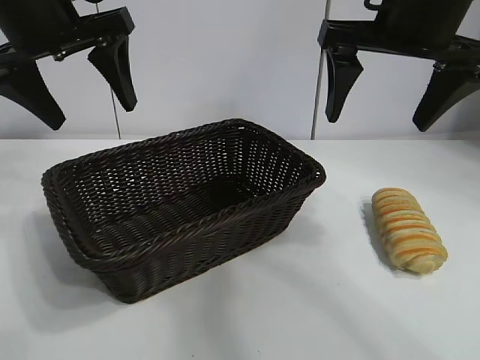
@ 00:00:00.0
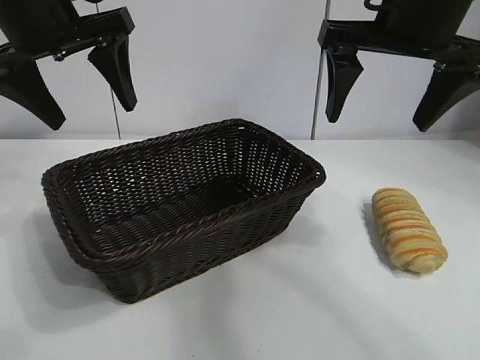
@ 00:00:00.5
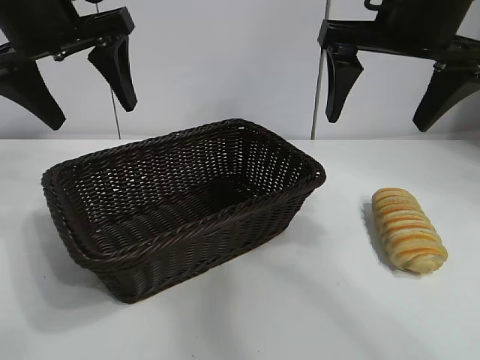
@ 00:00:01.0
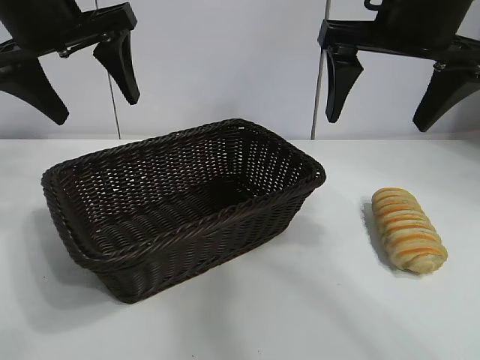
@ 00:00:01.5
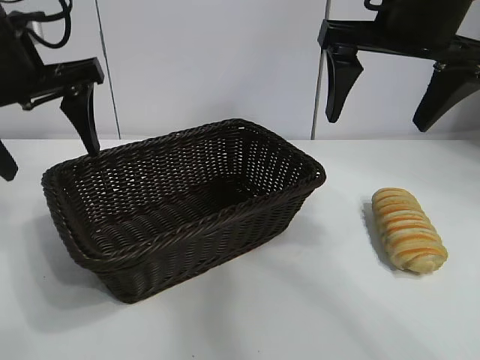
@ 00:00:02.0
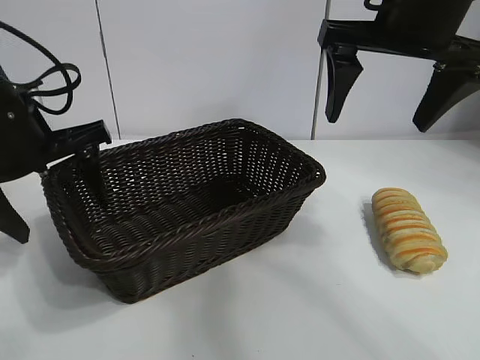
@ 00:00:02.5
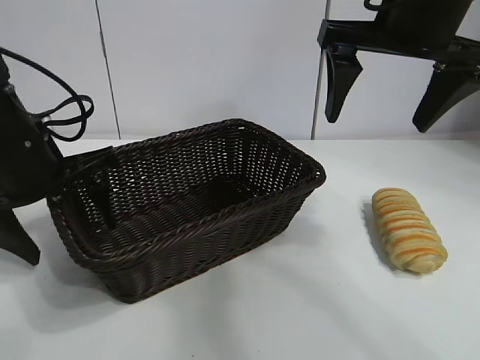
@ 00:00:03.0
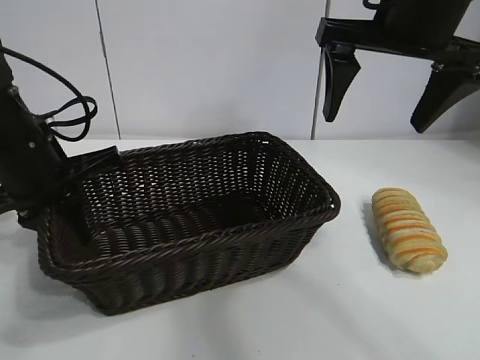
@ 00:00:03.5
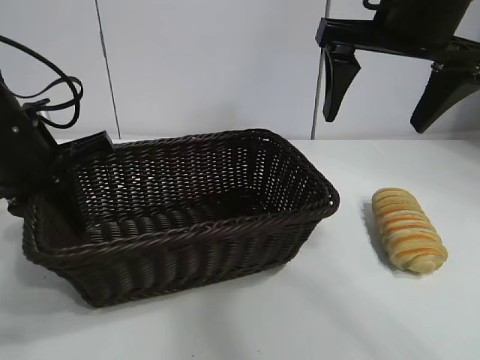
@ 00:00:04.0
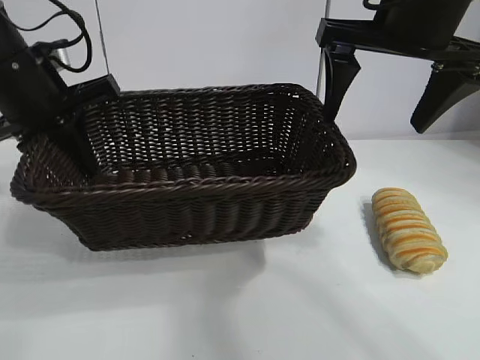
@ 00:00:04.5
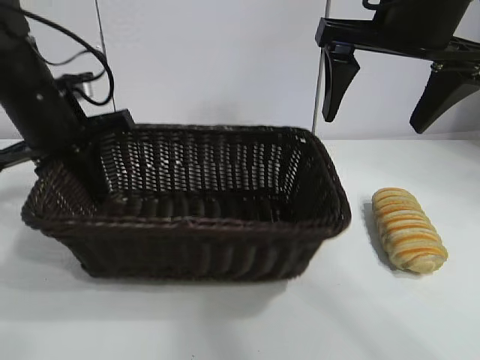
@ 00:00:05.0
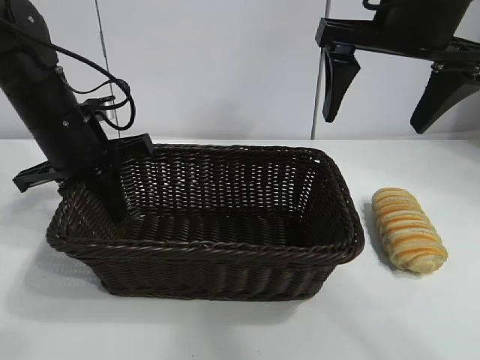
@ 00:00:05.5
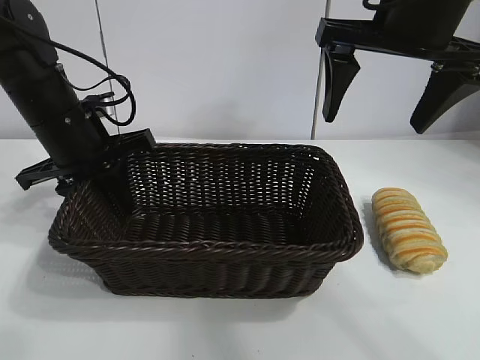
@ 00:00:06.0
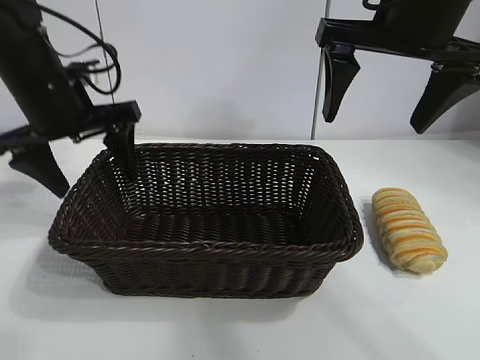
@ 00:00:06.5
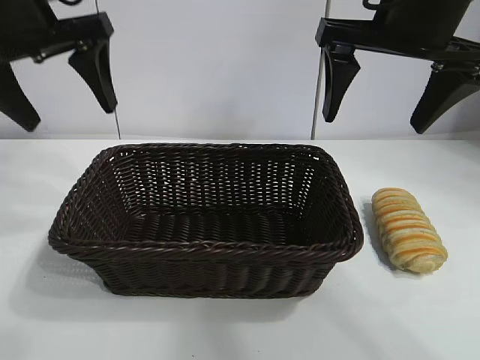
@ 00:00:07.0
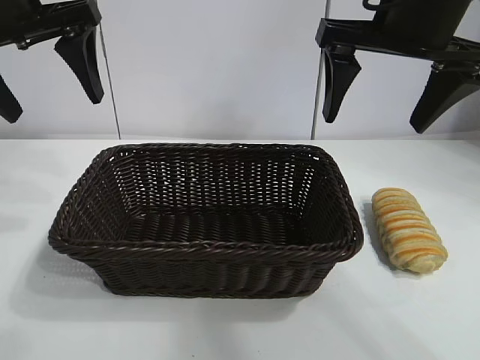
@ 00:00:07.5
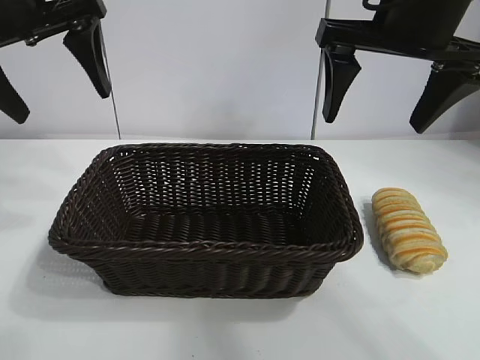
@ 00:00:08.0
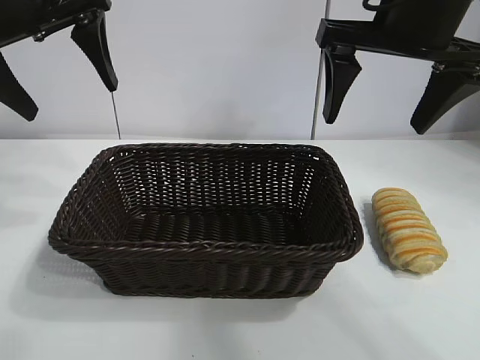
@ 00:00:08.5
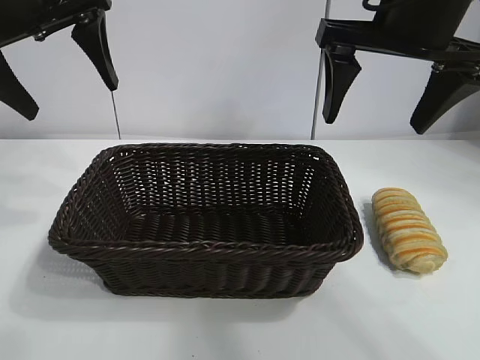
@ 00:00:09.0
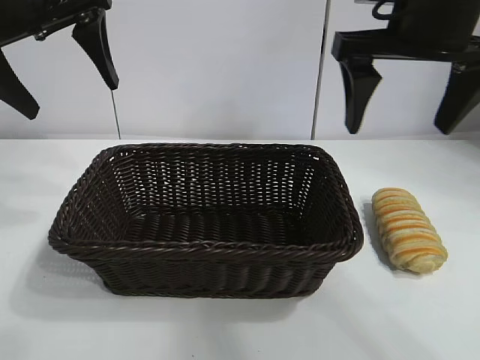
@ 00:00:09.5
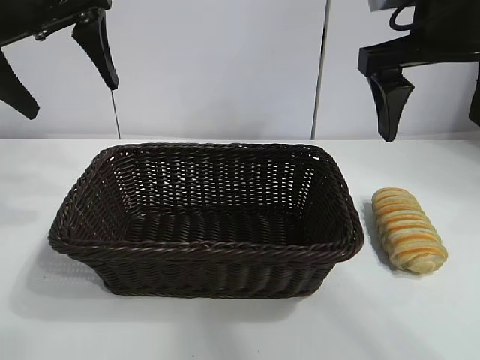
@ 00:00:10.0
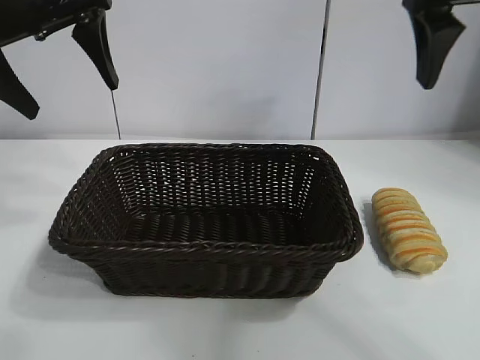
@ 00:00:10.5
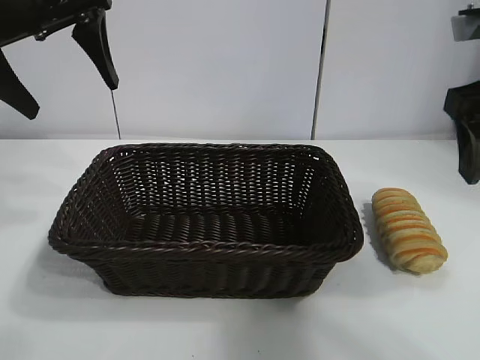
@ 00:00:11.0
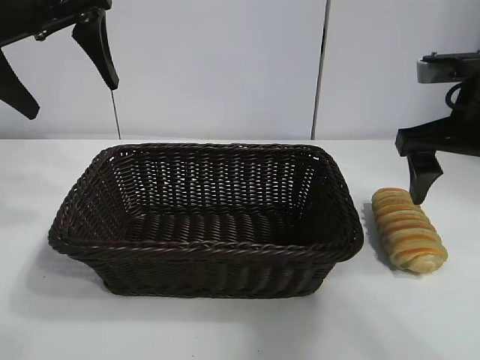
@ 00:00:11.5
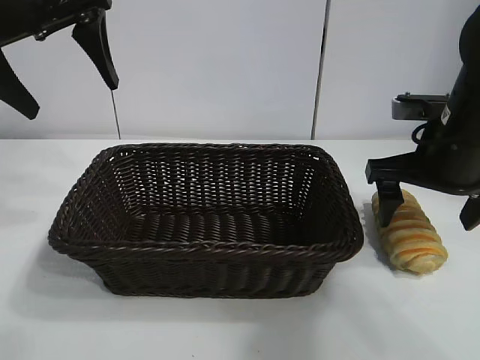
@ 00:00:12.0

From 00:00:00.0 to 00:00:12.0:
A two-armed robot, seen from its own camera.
Task of the whole recording: pick up the long bread and put it into the basket.
Step, from 00:00:01.5 to 00:00:03.0: Grasp the basket with the left gripper.
Step, from 00:00:04.0 to 00:00:06.0: Place the basket in the center of the table with the left gripper.

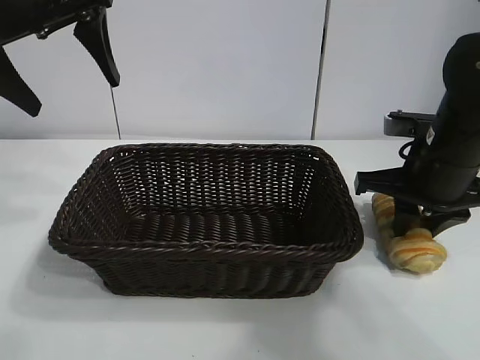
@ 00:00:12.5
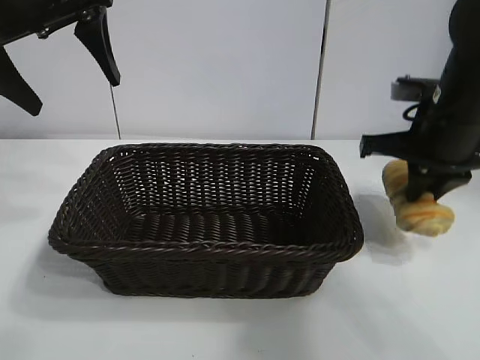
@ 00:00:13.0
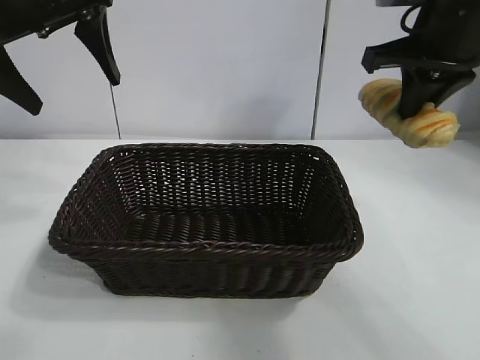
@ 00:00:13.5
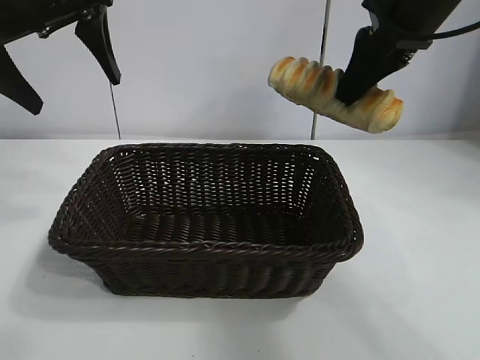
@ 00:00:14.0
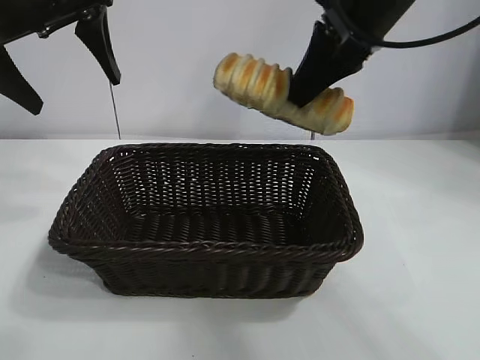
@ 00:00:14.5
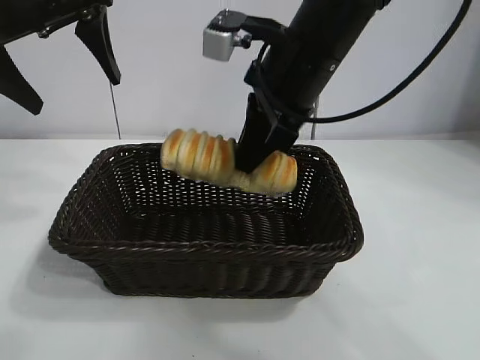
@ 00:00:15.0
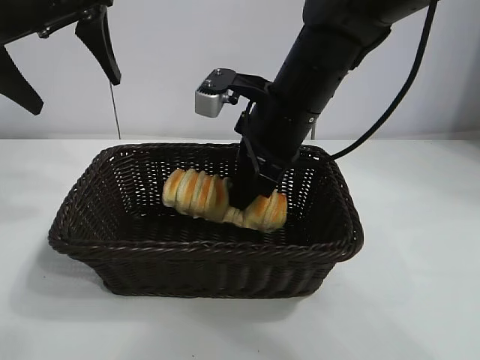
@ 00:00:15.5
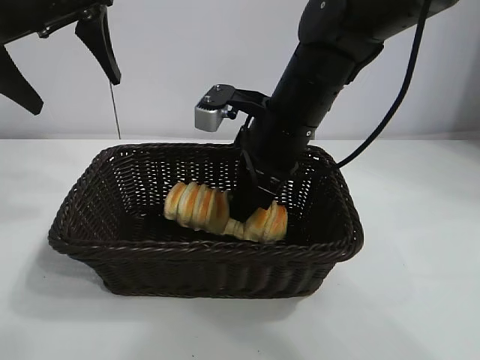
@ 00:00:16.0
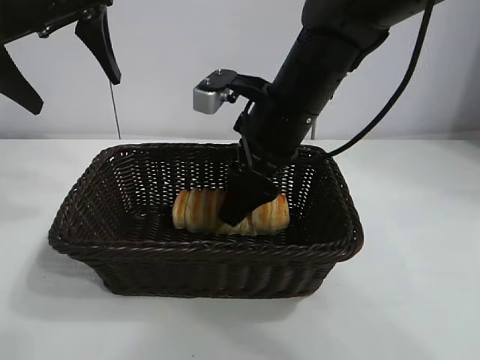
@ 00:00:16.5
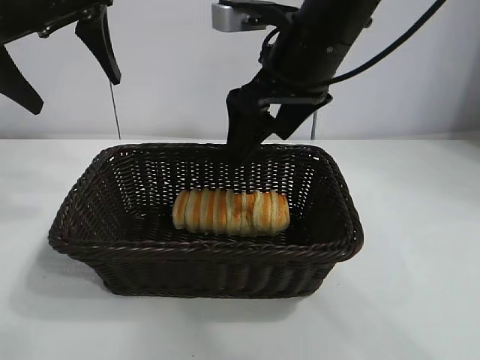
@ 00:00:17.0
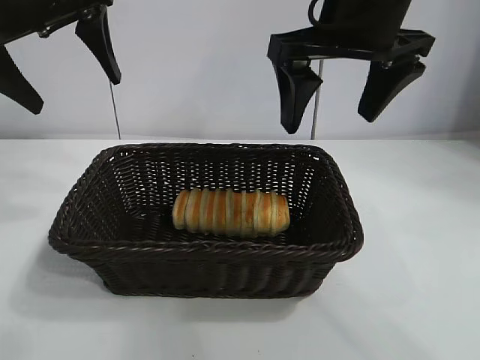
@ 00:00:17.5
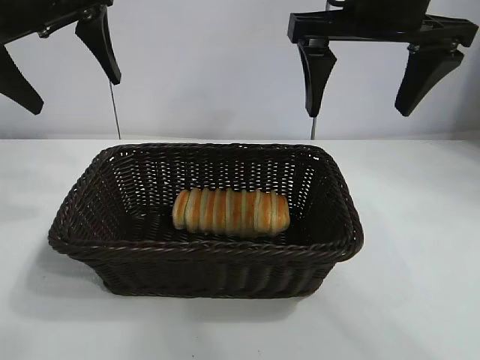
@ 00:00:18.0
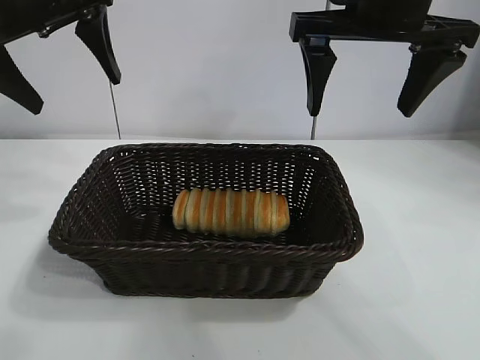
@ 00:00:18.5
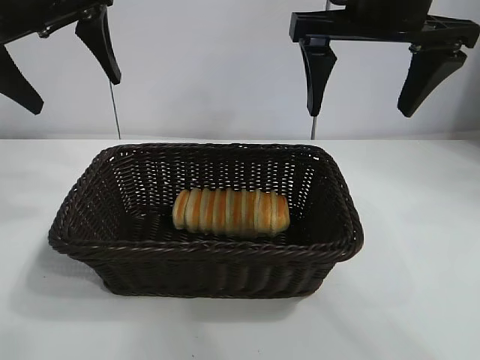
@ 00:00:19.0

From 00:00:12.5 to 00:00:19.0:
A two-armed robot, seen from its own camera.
Task of the whole recording: pick up the long bread and put it into the basket.
Step, from 00:00:13.0 to 00:00:16.5: Place the long bread in the basket with right gripper.

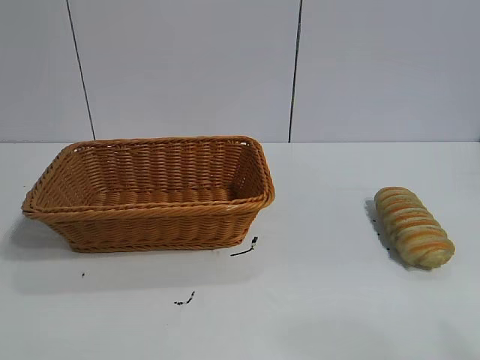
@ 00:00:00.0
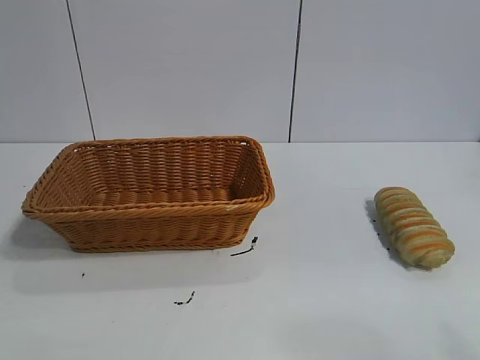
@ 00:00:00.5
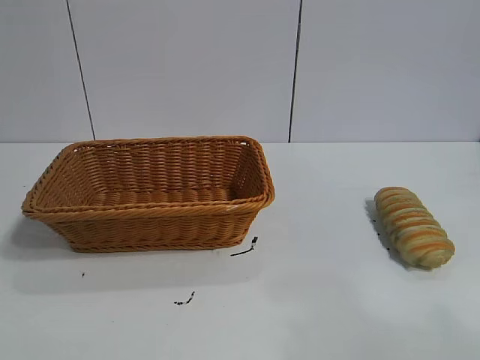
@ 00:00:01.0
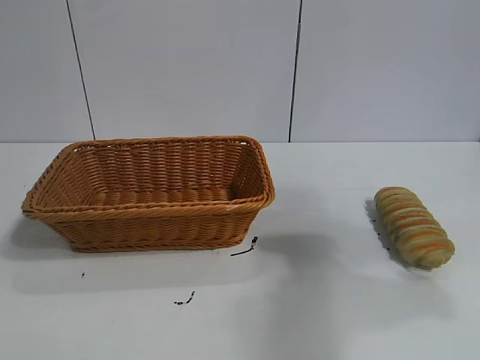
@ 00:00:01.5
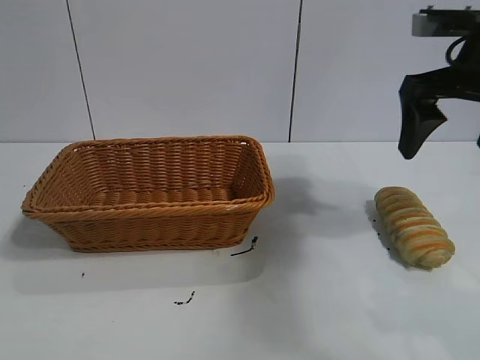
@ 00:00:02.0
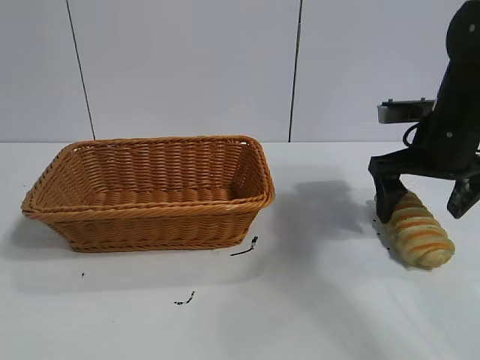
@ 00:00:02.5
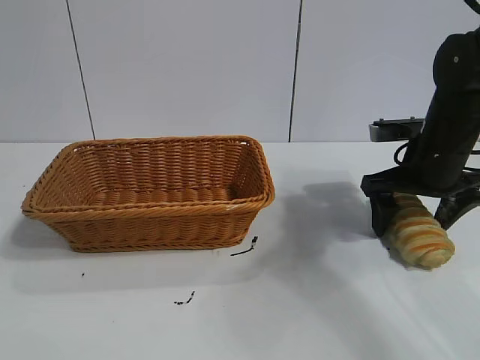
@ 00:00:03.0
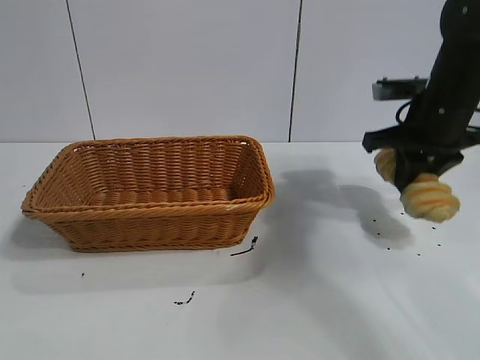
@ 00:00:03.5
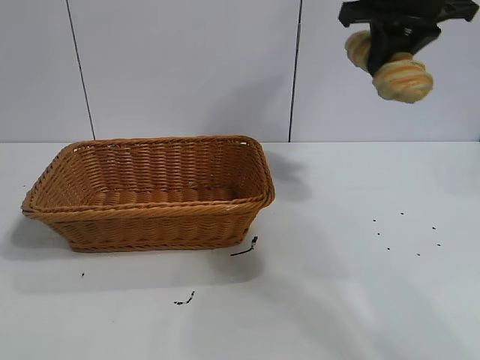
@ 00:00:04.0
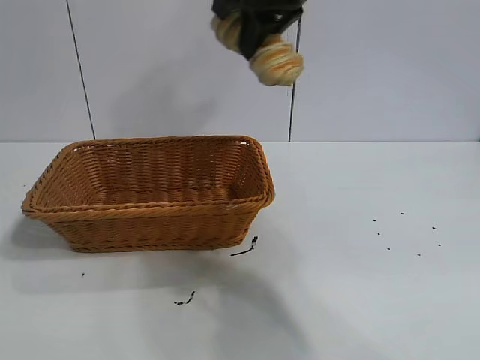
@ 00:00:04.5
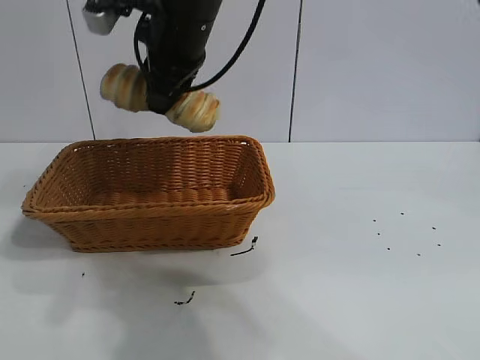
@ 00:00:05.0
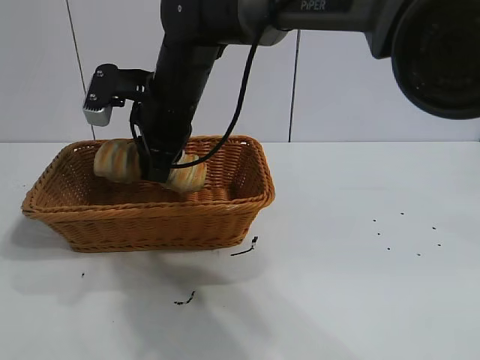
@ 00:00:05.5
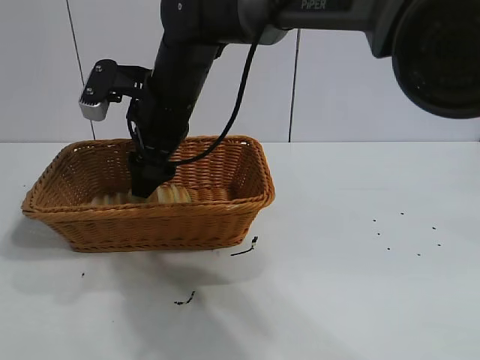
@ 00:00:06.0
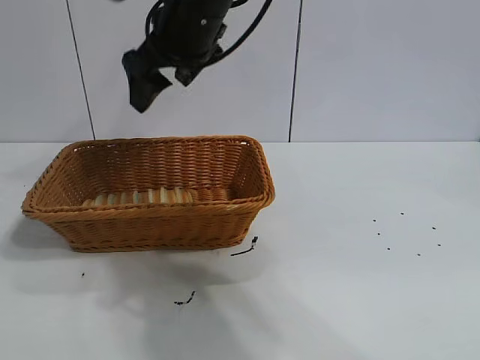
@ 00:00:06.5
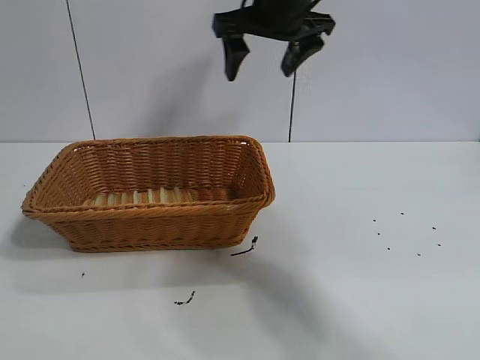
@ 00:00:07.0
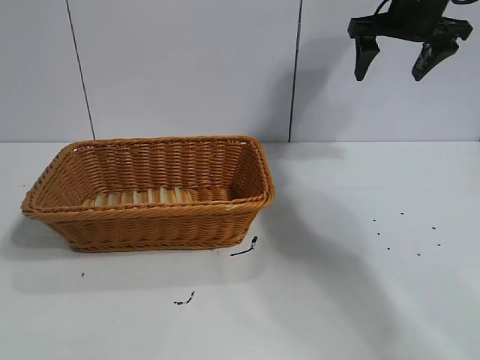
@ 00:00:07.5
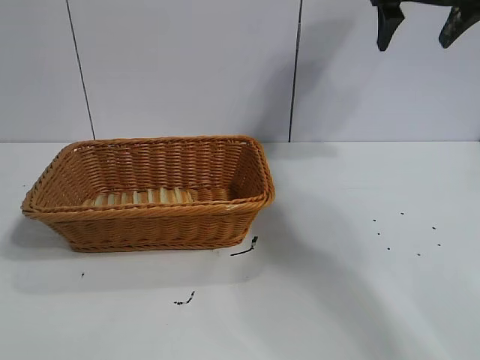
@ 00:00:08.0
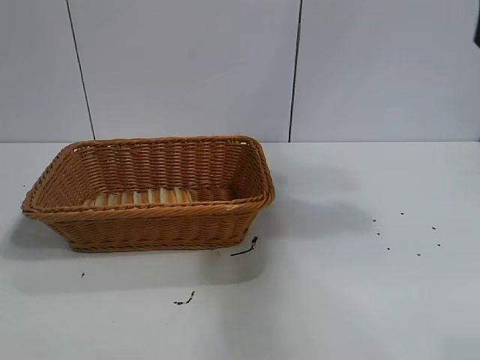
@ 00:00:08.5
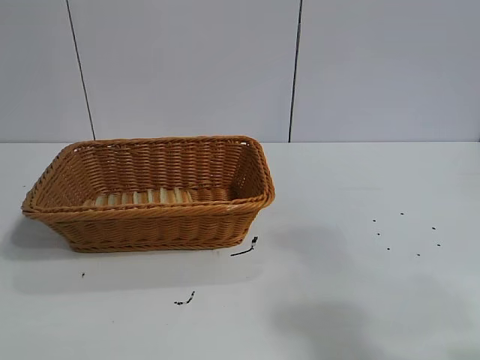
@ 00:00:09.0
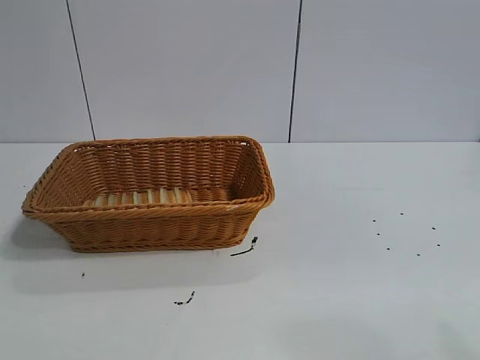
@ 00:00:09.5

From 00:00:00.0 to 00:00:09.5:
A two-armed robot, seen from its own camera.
Task of the whole recording: pick up the long bread and put it into the basket.
Step, from 00:00:02.0 to 00:00:03.0: Grasp the long bread with right gripper.
Step, from 00:00:03.5 to 00:00:06.0: Place the long bread in the basket with right gripper.
